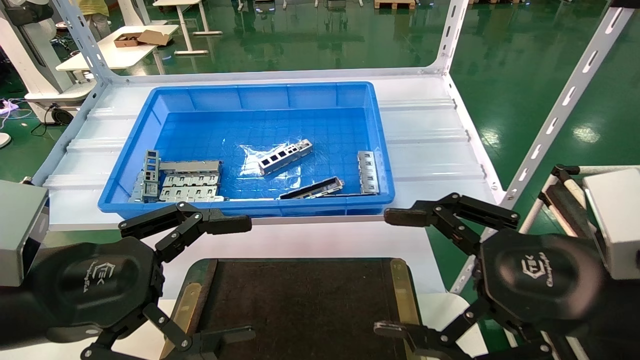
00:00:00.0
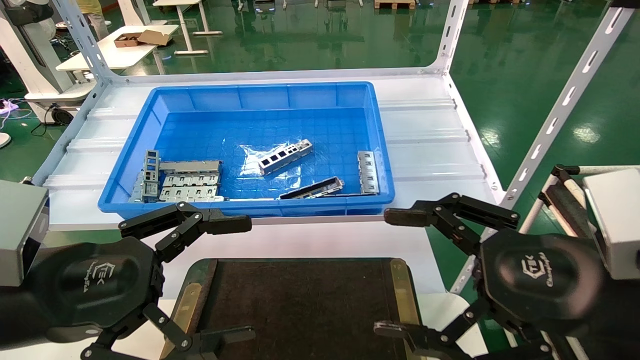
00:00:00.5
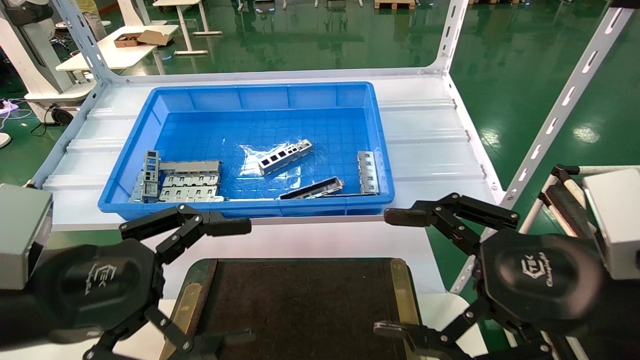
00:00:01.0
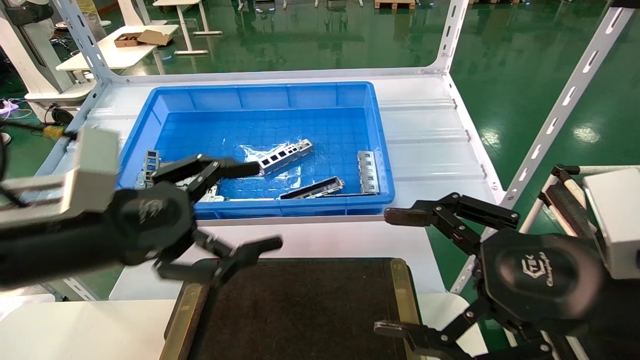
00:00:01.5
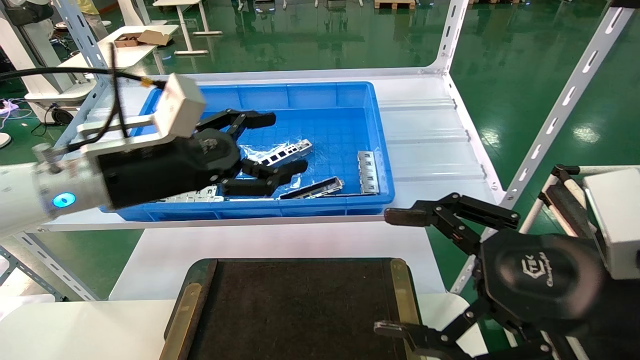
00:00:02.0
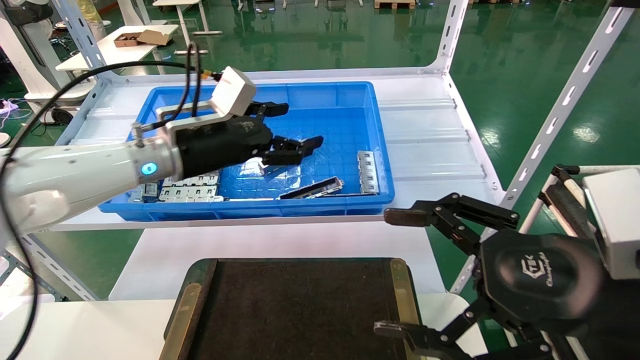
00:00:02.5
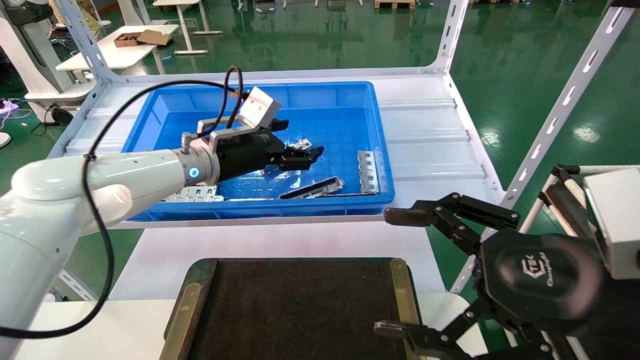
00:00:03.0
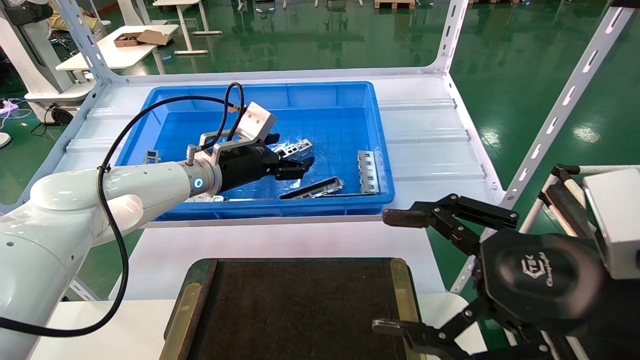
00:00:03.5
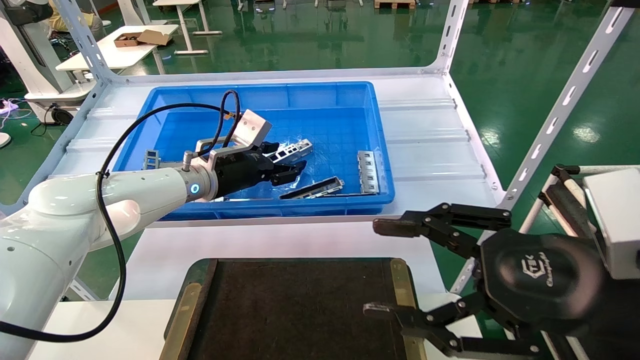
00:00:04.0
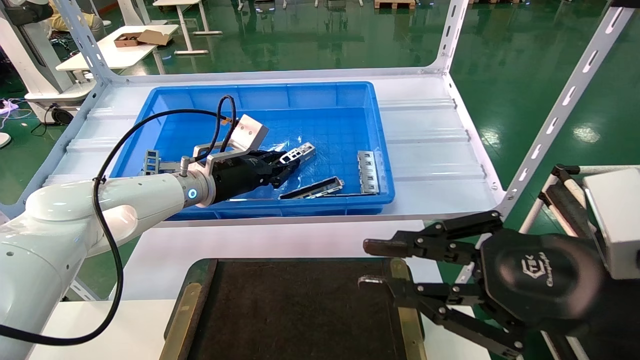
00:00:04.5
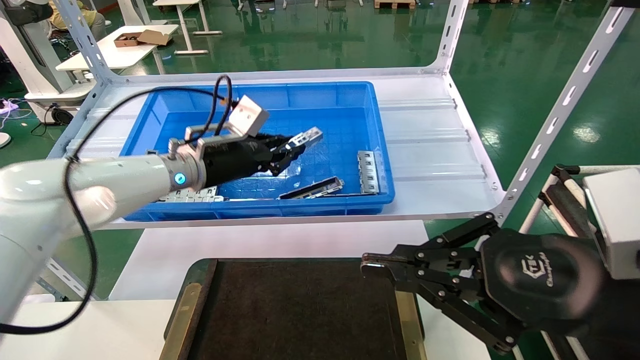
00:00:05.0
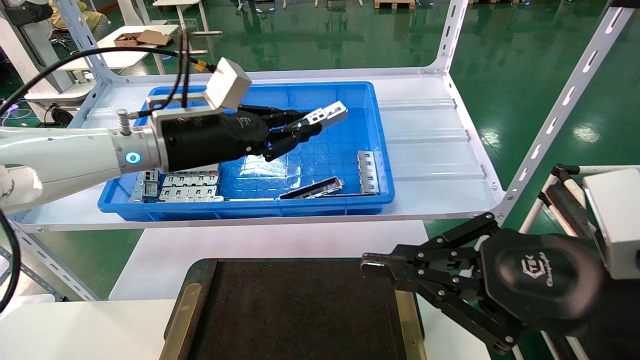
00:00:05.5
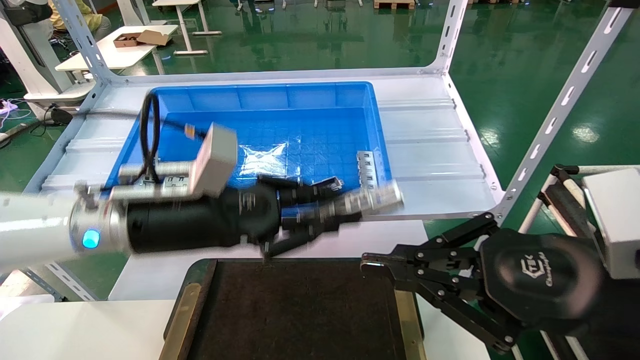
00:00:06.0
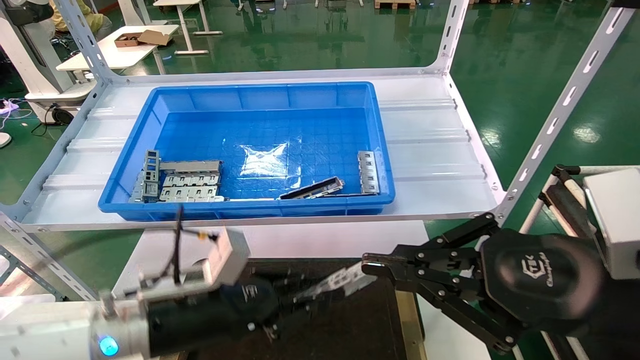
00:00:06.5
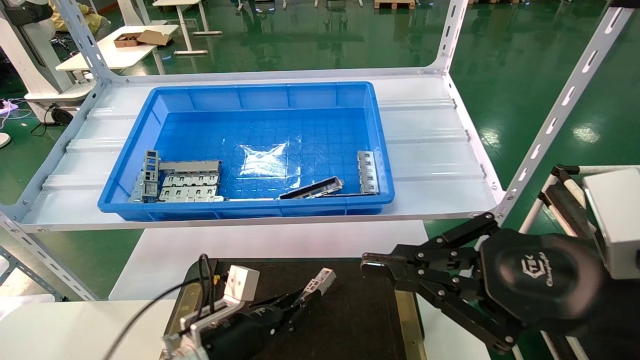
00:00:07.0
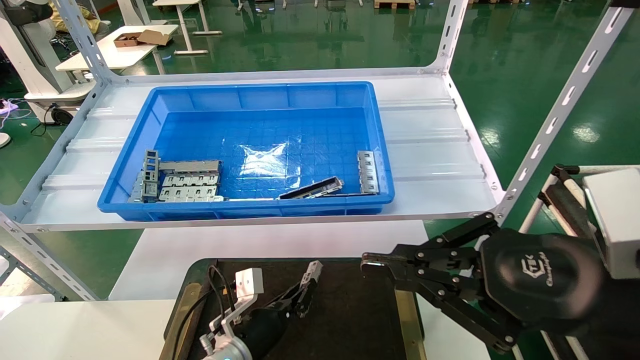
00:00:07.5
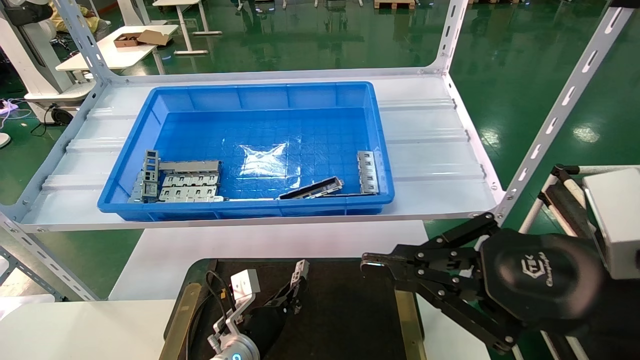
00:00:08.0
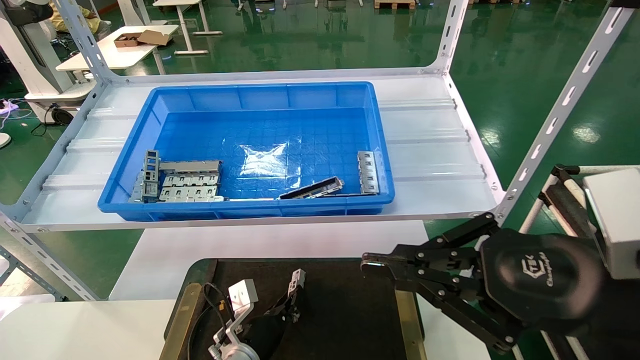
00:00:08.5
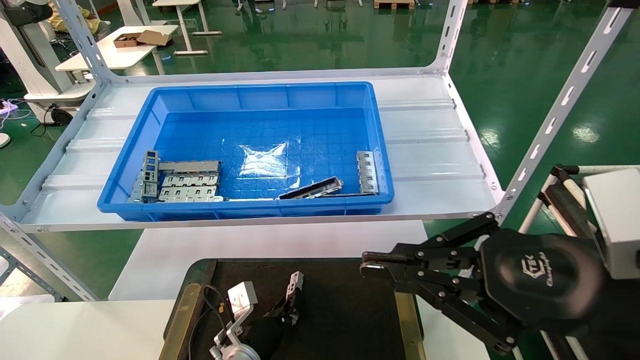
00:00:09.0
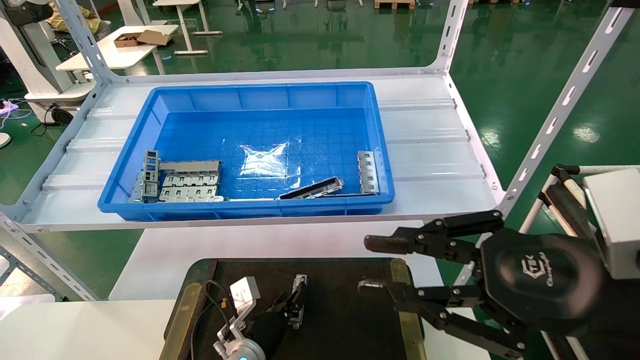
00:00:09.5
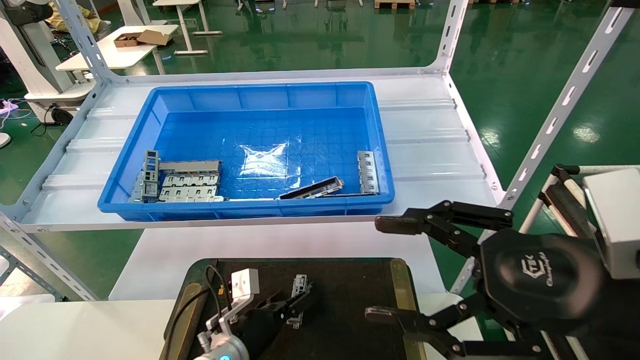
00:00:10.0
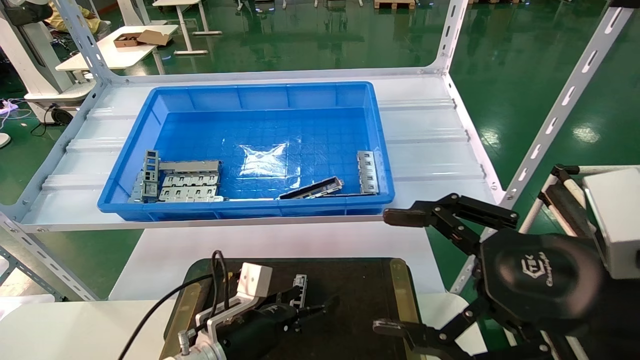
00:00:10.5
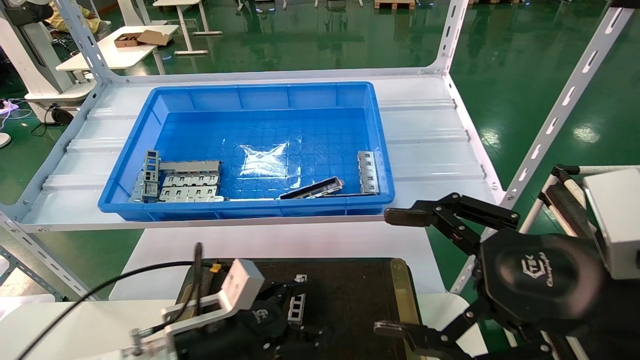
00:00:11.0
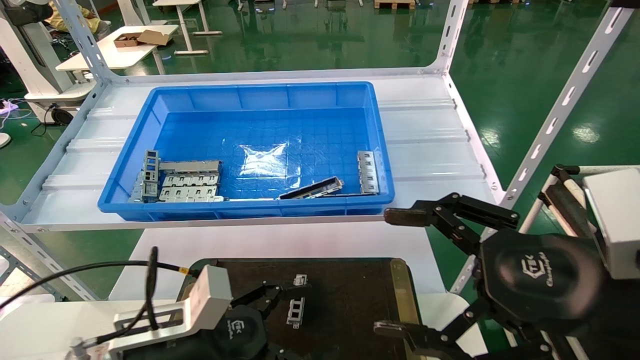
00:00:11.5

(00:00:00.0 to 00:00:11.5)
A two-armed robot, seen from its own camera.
Task of the whole recording: Grasp the part with one hand and place it on the black container.
Step, 00:00:01.5 - 00:00:05.0: Pick up the front USB bracket from the feeding area.
Step, 00:00:05.5 - 00:00:09.5: Place the front USB bracket into the box.
00:00:00.0 - 00:00:02.0: The left gripper heads forward, covering roughly 15 cm.
00:00:02.0 - 00:00:04.0: The left gripper goes about 15 cm forward.
00:00:04.0 - 00:00:06.0: The left gripper is displaced backward by about 15 cm, and closes. Meanwhile the right gripper closes up.
00:00:06.0 - 00:00:07.5: The left gripper travels downward by about 30 cm.
00:00:07.5 - 00:00:09.5: The grippers make only small movements.
00:00:09.5 - 00:00:11.5: The right gripper opens its fingers; the left gripper is displaced upward, backward and to the left by some 25 cm, and opens up.
